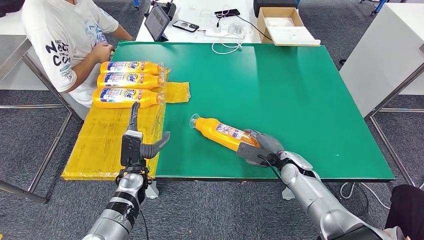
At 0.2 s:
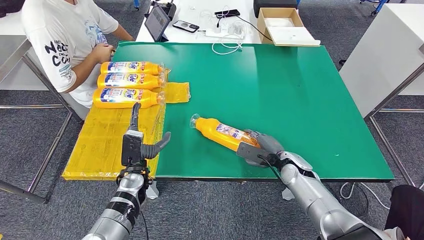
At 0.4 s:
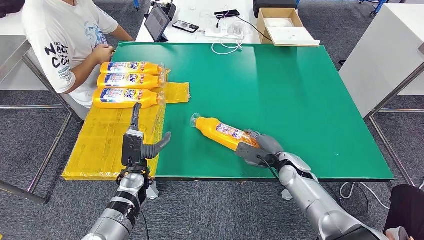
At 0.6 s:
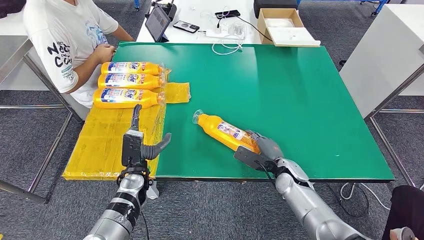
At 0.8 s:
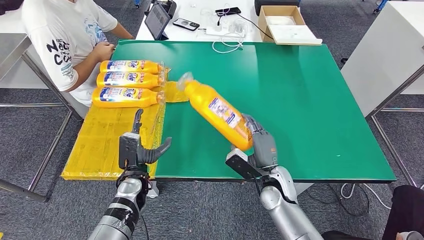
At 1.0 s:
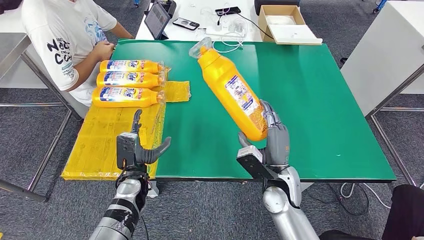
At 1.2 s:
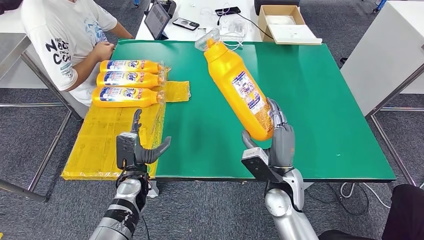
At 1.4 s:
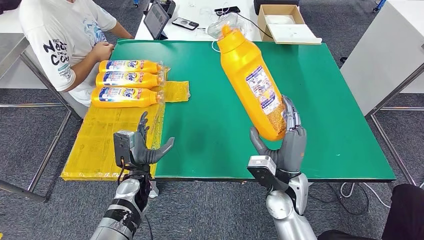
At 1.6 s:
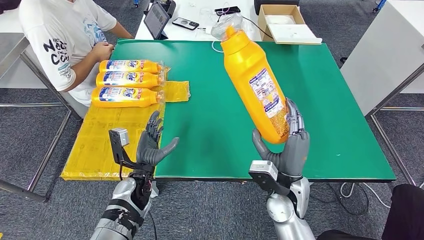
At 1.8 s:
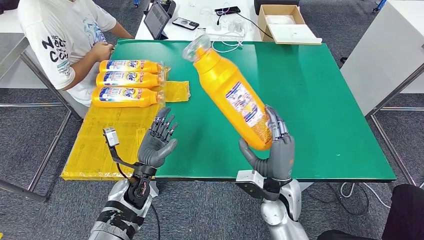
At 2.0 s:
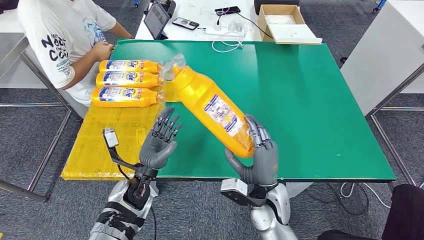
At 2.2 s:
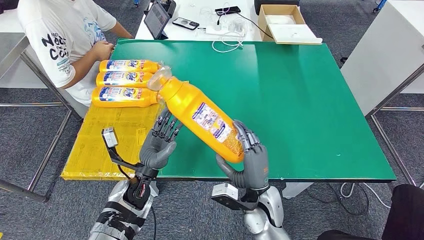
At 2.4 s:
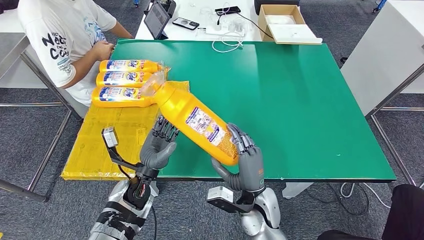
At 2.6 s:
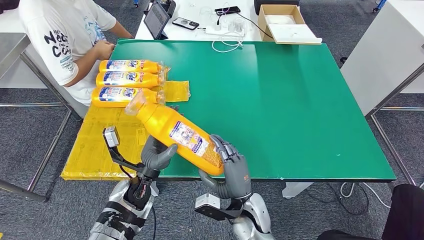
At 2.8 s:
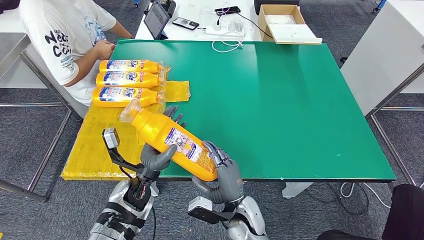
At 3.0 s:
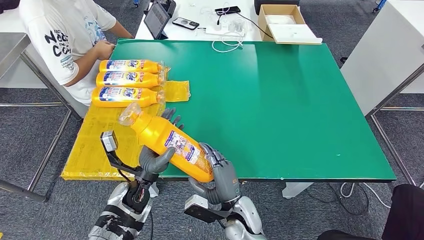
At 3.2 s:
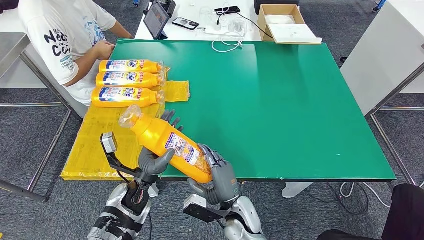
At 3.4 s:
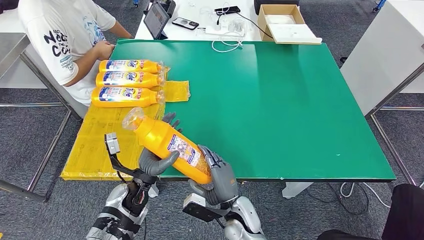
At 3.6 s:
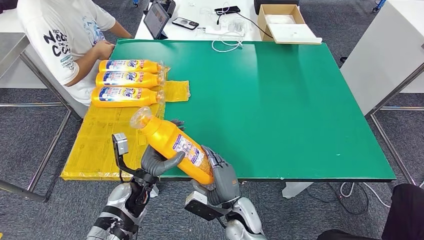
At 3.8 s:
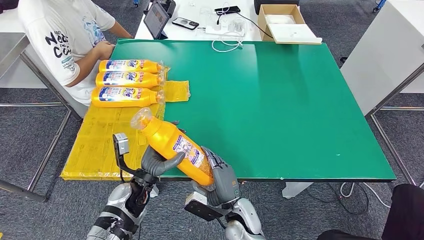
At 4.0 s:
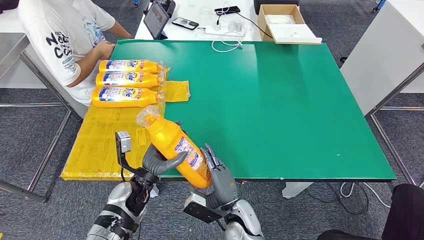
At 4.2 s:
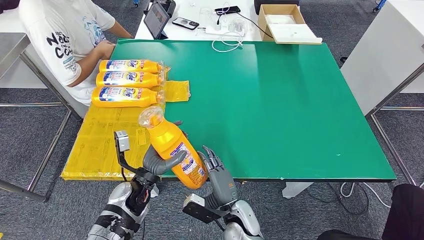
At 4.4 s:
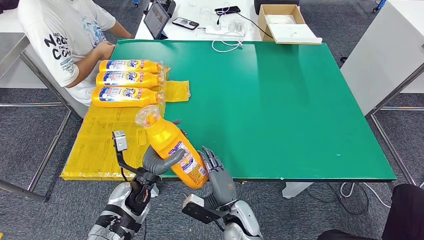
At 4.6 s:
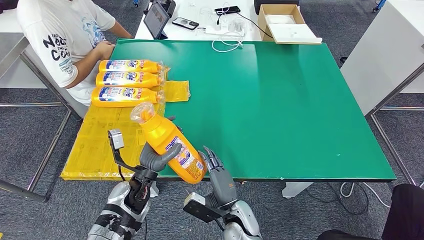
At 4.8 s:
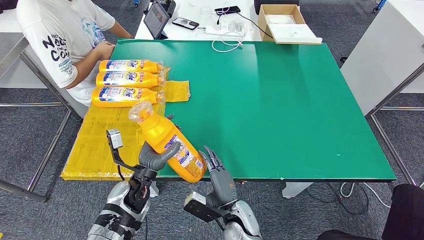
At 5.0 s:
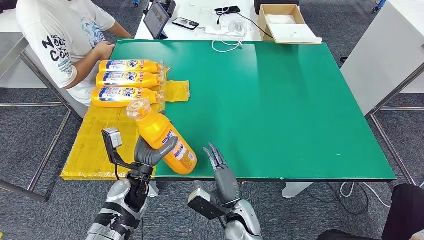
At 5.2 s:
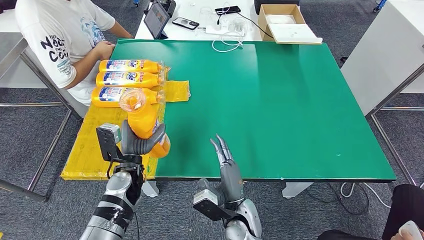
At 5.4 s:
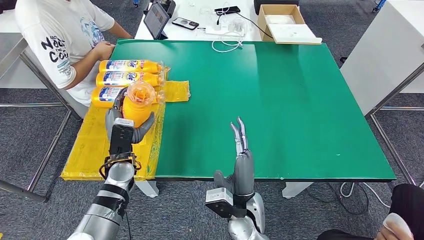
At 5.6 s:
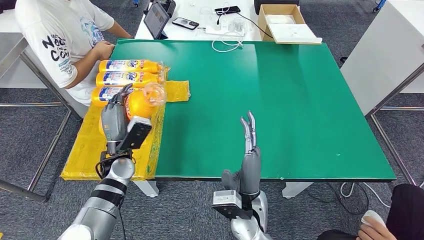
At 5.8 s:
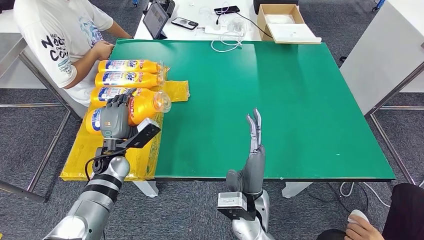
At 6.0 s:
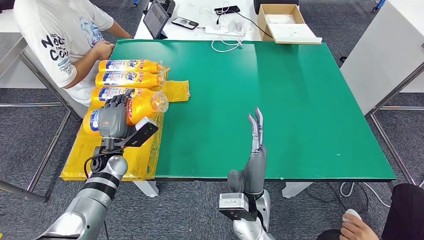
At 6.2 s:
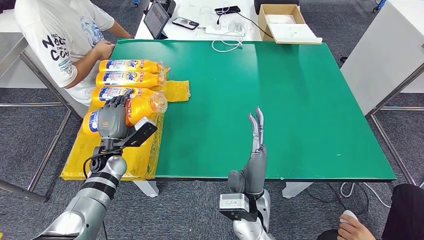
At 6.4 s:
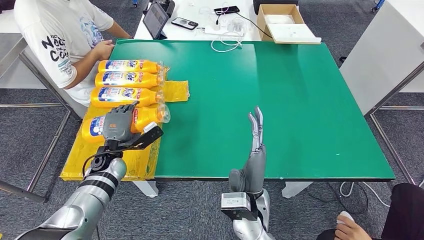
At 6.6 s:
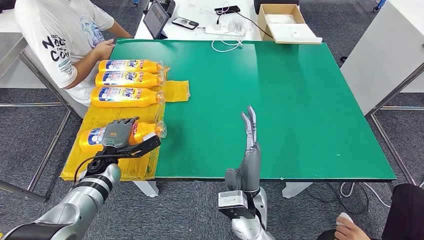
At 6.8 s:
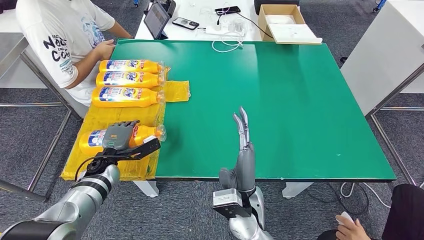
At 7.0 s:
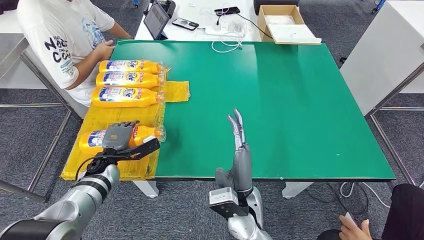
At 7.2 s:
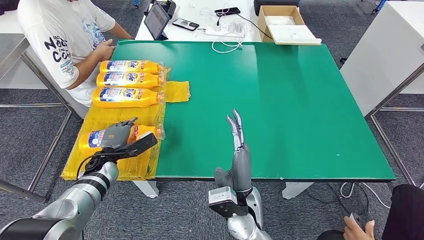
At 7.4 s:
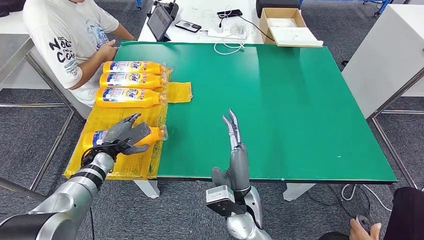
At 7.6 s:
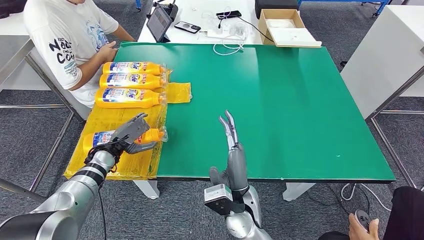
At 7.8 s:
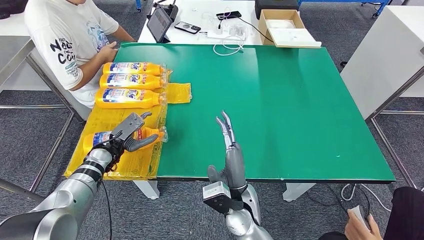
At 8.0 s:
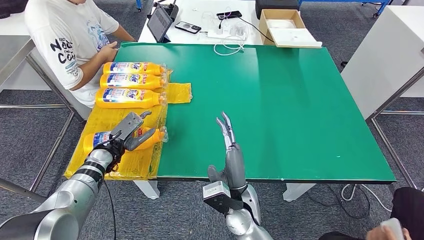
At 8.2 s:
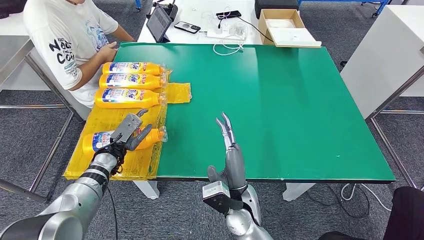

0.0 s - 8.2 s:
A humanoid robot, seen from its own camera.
Step, 1.8 s - 8.2 s: Flip the fast-moving consumer goods bottle to the front side.
1.6 s - 3.2 s: The right hand is displaced to the left and downward by approximately 15 cm.
5.0 s - 6.6 s: The left hand heads to the left and forward, covering about 15 cm, while the right hand shifts approximately 10 cm upward.
